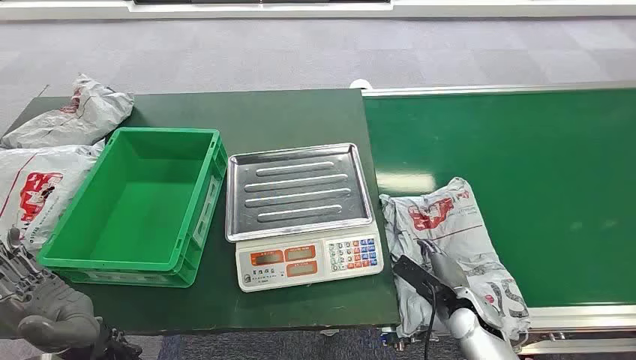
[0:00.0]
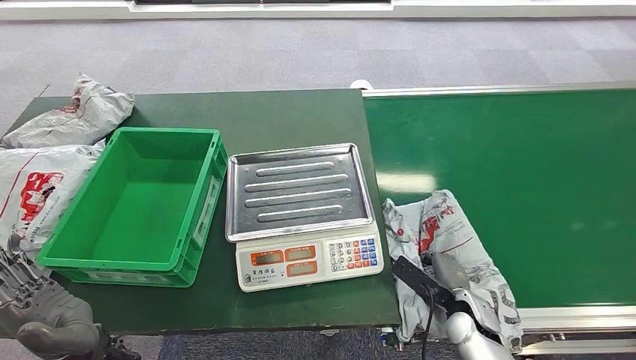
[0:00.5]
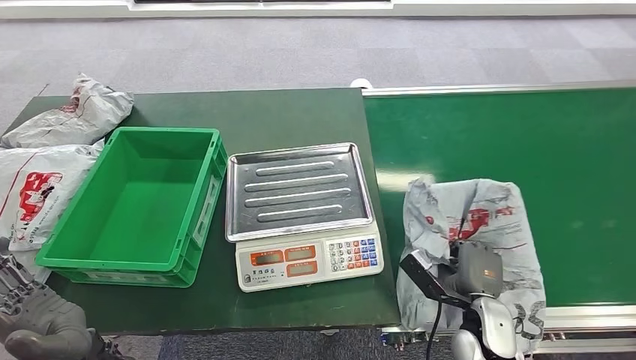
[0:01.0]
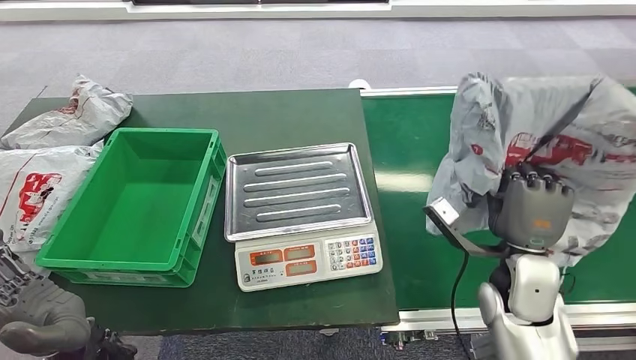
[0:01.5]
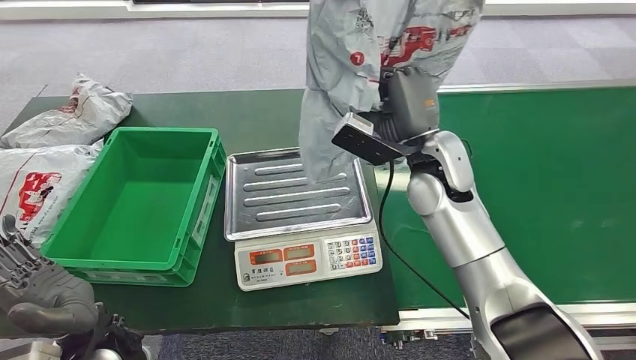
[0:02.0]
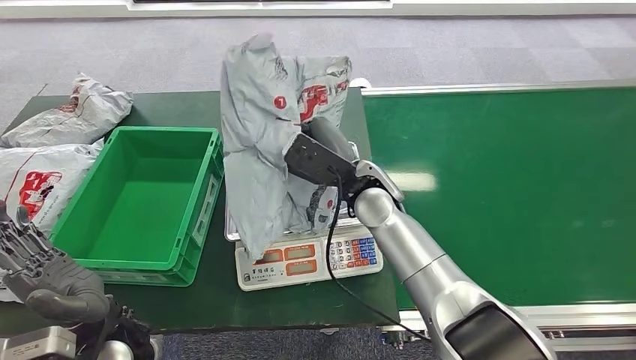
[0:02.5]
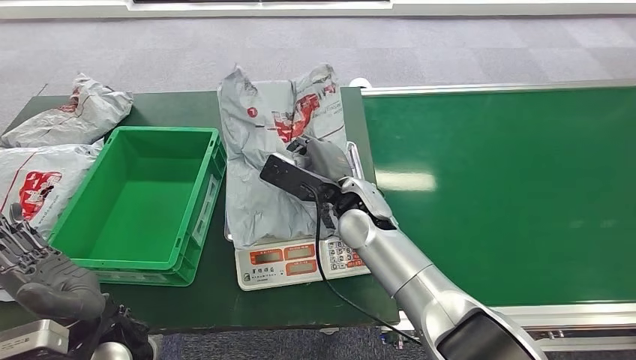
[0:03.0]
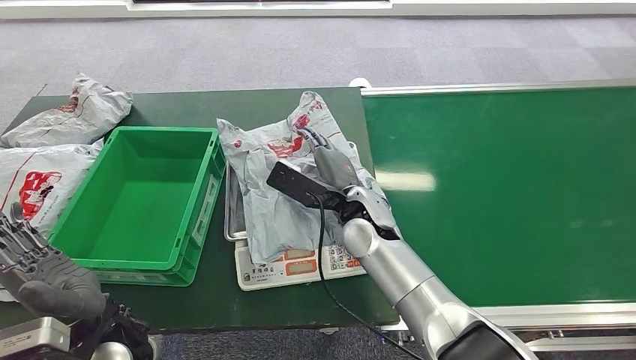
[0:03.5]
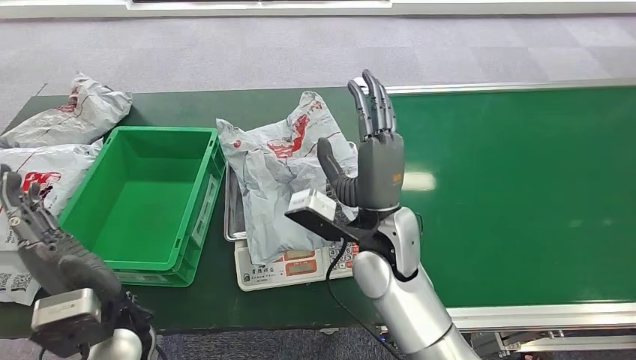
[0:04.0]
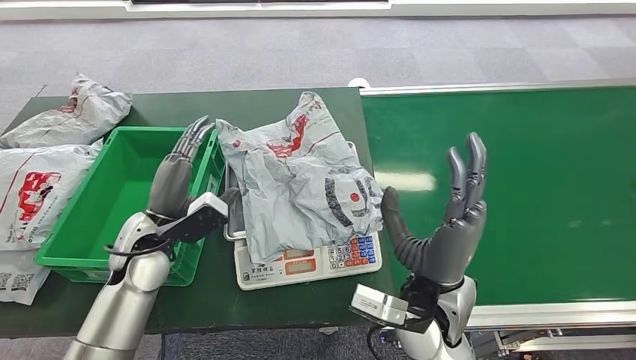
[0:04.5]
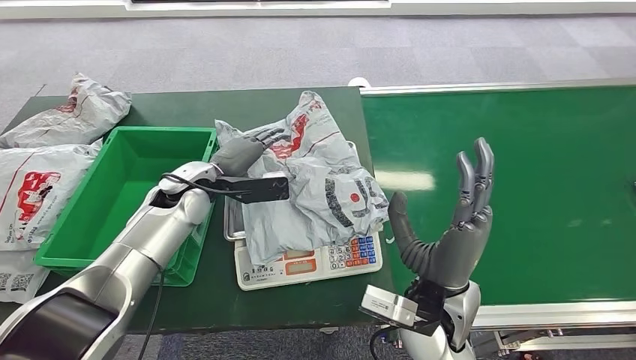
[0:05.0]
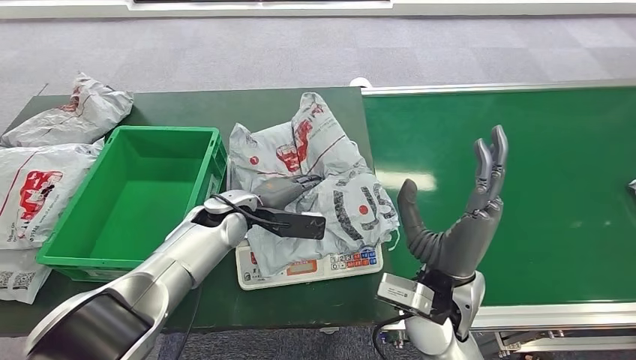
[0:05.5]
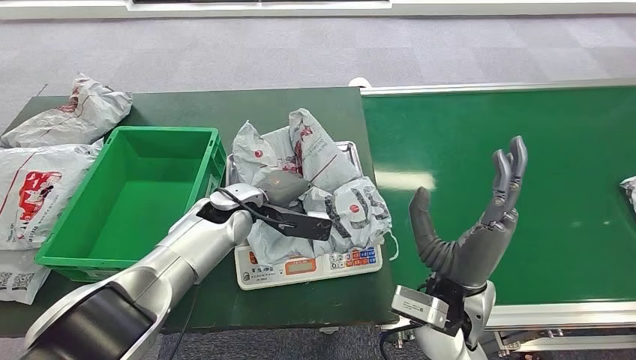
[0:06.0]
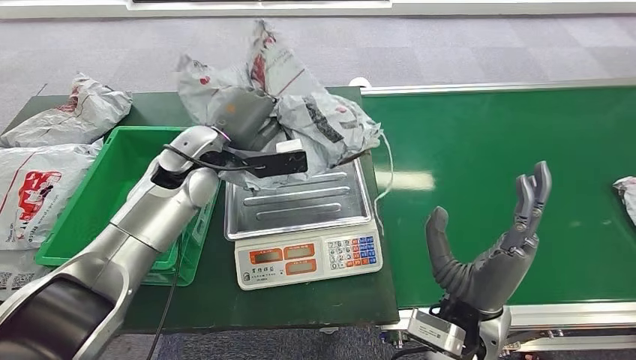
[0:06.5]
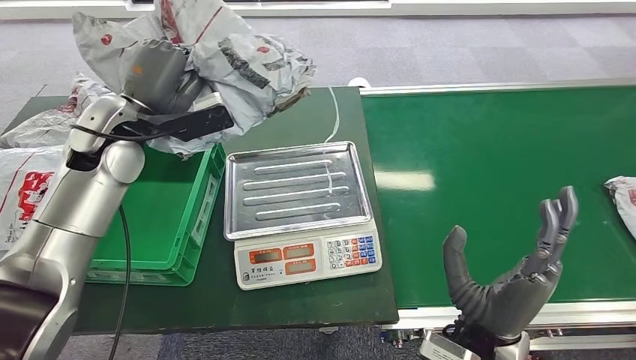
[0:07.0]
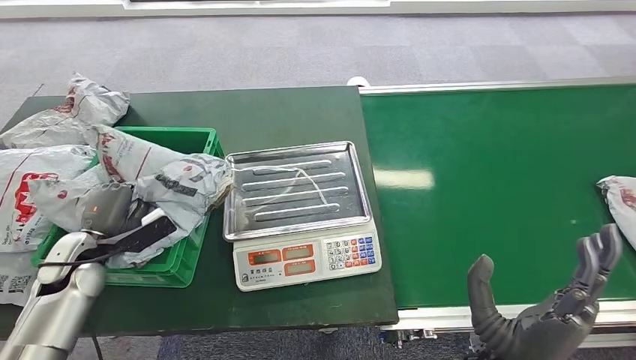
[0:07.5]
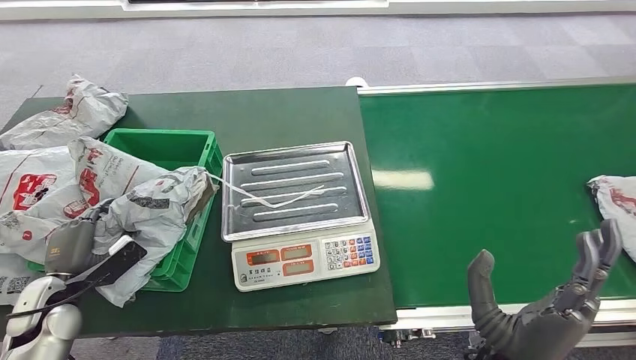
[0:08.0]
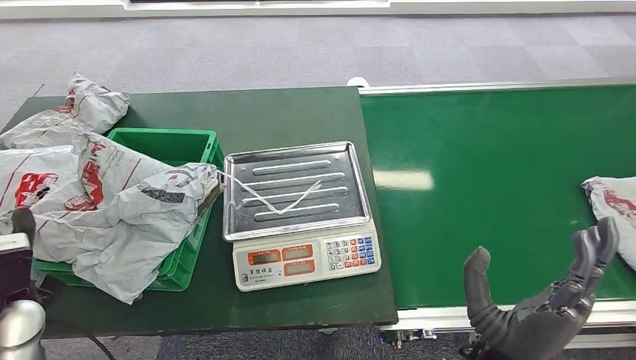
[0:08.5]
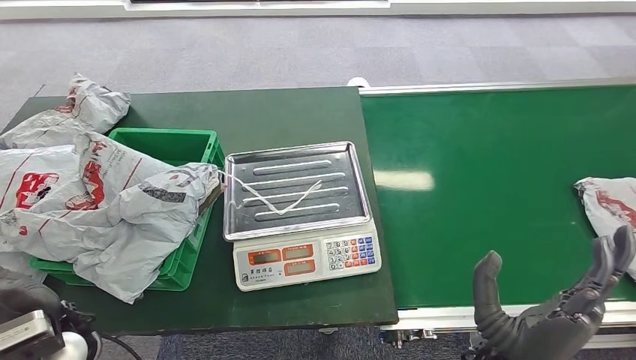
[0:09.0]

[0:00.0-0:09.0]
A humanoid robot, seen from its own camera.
Task of the whole recording: Weigh the package on the weighing device and place it in the left basket.
Step, 0:00.0 to 0:01.0: Pick up the package from the conveyor belt.
Step, 0:01.5 to 0:04.5: Place the package onto the inbound machine.
Step, 0:05.0 to 0:06.5: Pick up the package from the inbound machine.
Step, 0:07.5 to 0:09.0: Place the package into the parcel locker.

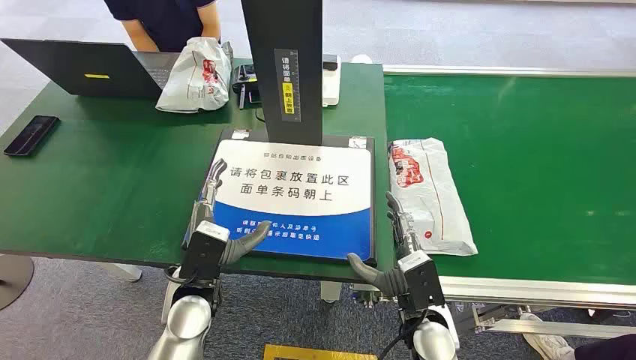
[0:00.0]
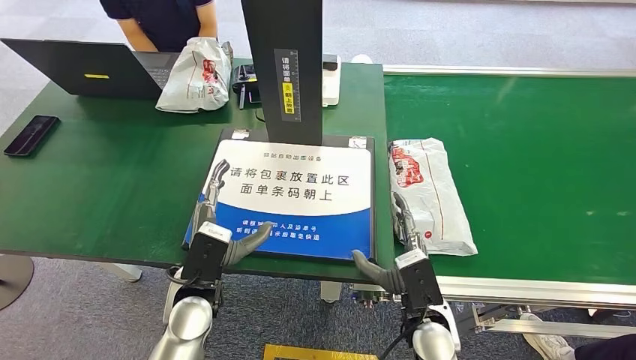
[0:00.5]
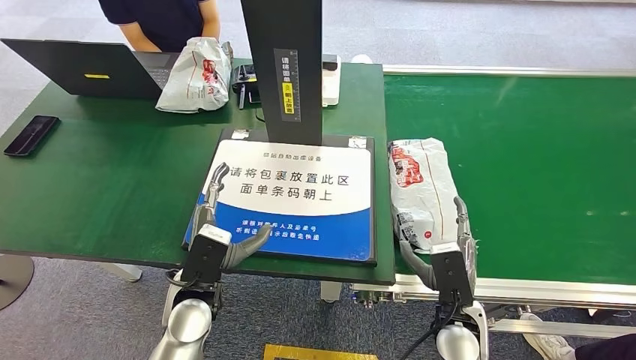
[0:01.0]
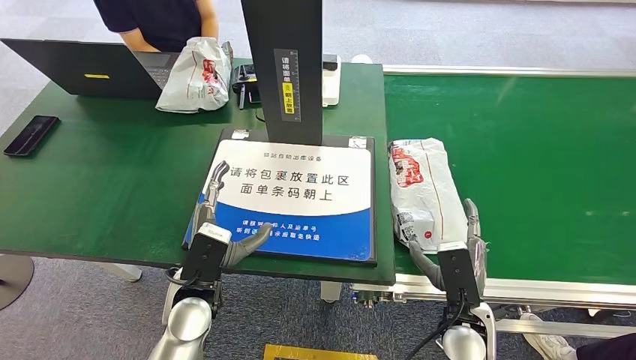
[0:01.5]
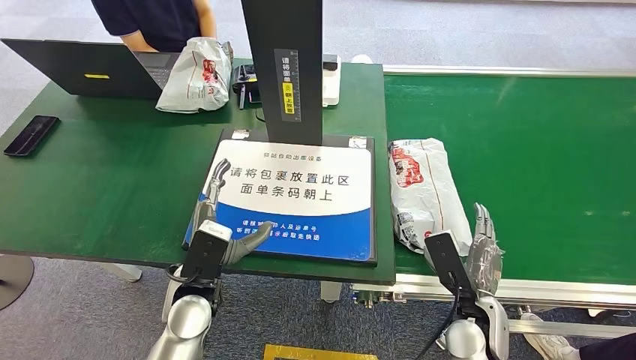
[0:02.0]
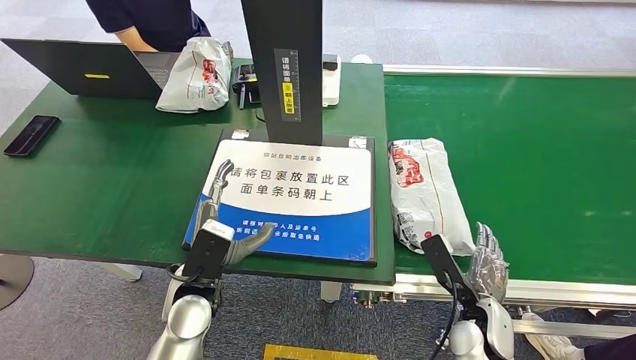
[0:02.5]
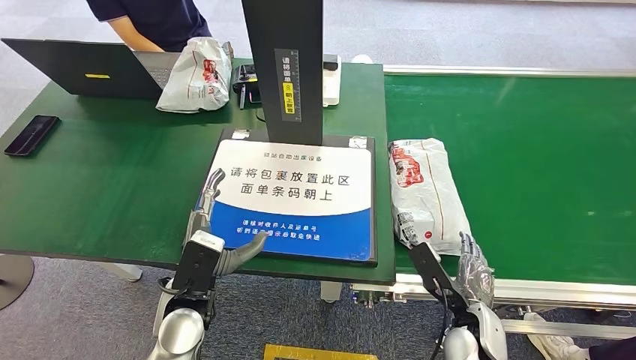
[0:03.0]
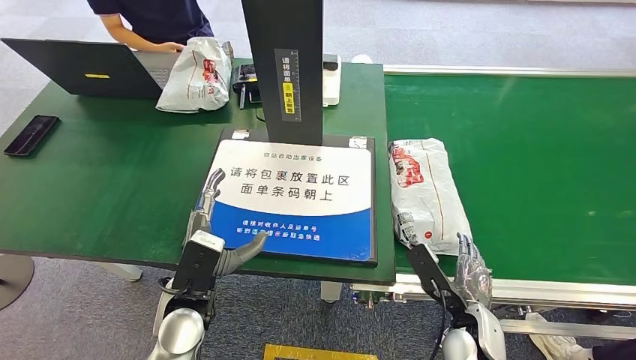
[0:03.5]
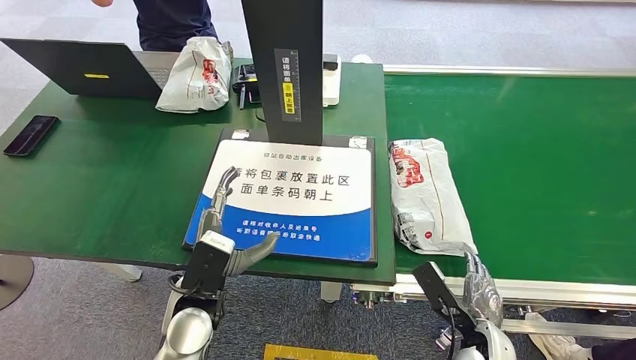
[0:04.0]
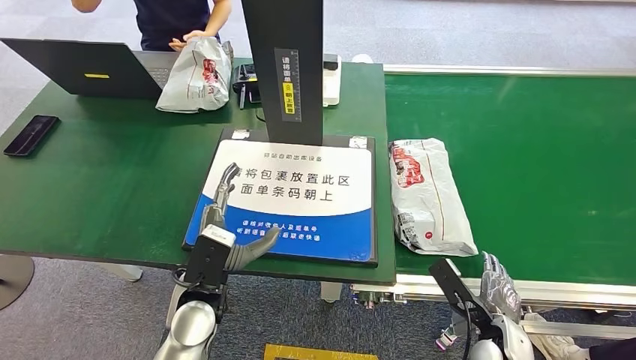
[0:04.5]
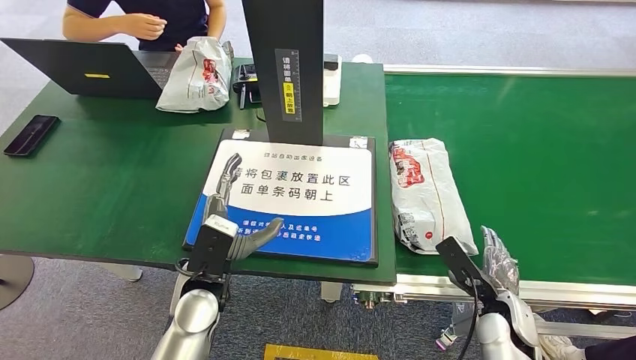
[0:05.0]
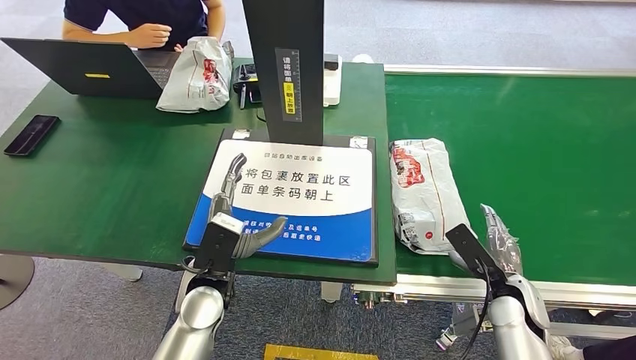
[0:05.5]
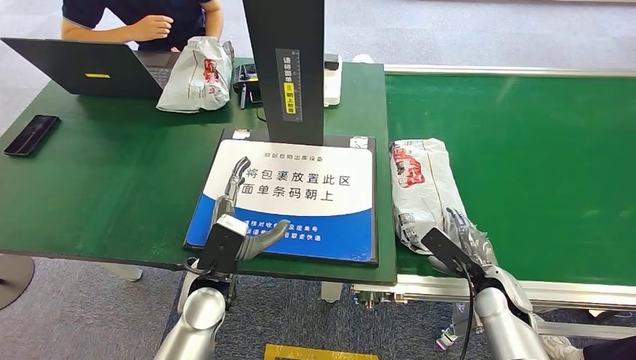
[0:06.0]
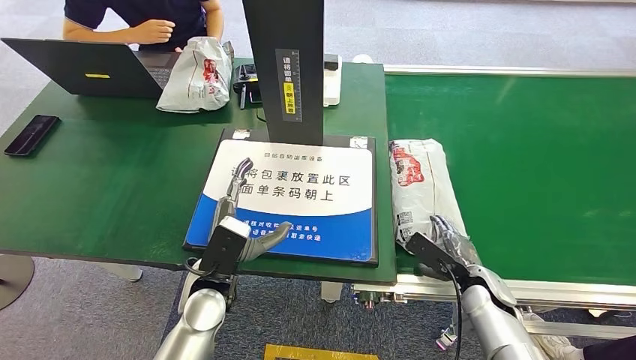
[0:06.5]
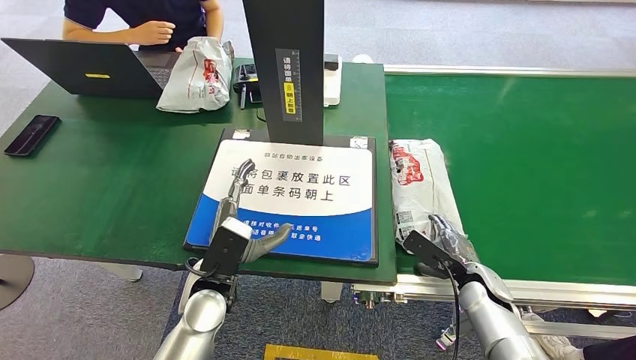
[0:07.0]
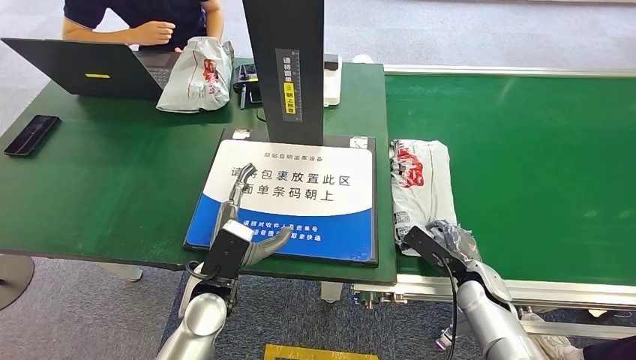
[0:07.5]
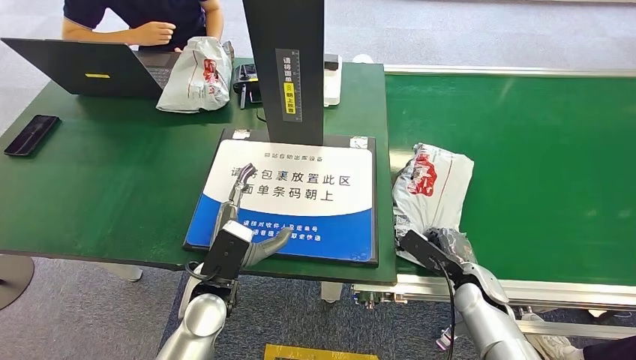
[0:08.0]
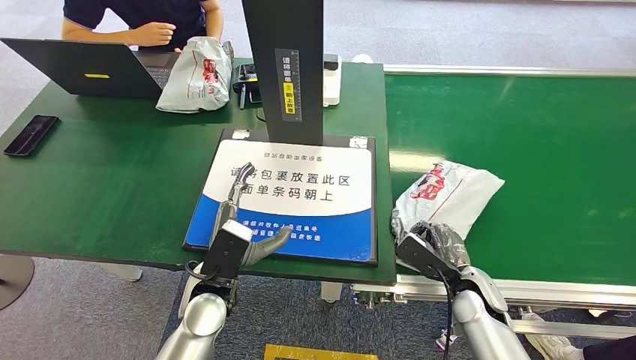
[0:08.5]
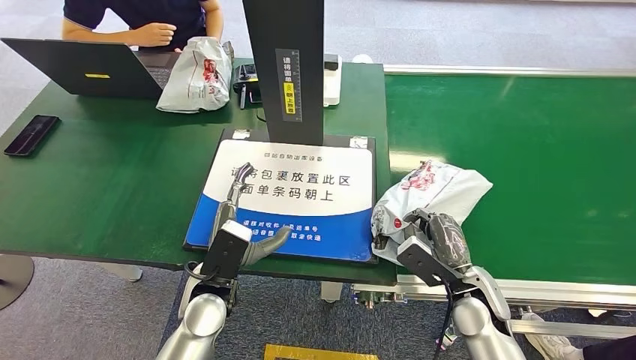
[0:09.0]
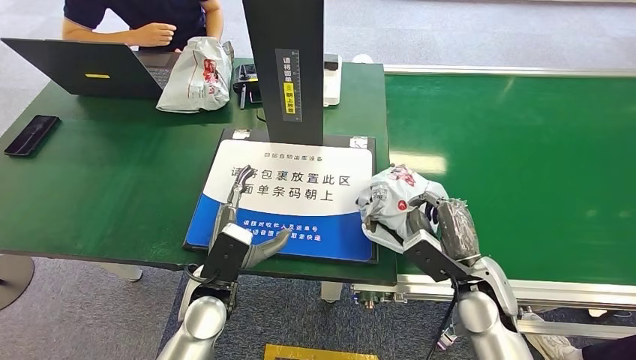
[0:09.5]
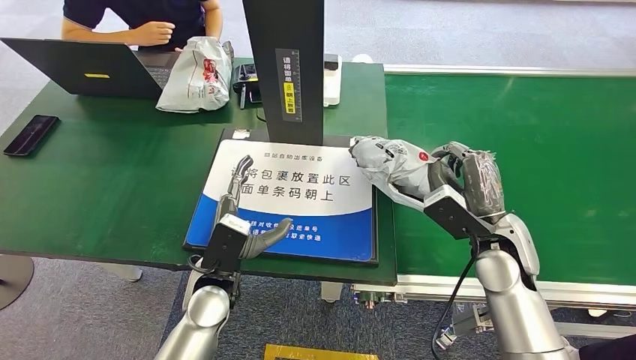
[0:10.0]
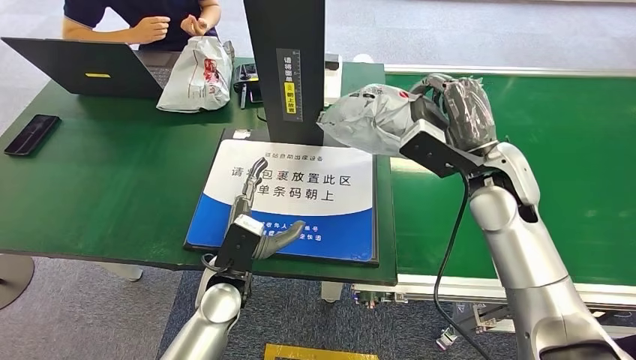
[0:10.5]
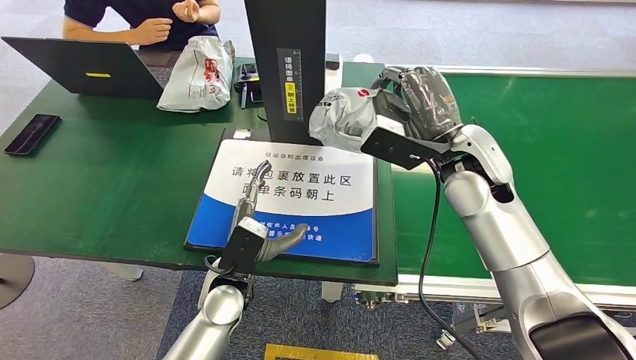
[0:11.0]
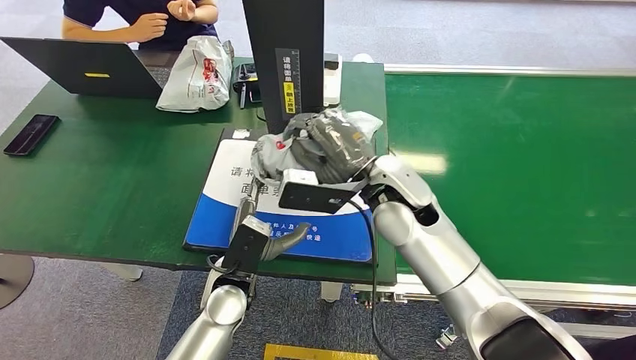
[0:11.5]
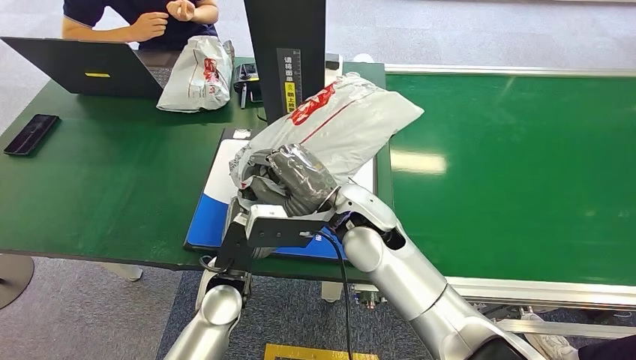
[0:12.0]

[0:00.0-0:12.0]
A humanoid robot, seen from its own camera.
Task of the whole recording: Weigh the package on the weighing device and place it in the left basket.
Step, 0:00.0 to 0:08.5: Pick up the package from the conveyor belt.
0:02.0 to 0:04.0: The right hand moves about 5 cm.
0:04.0 to 0:06.0: The right hand travels forward and to the right by some 10 cm.
0:06.0 to 0:08.0: The hands move only a little.
0:08.0 to 0:10.0: The right hand is displaced upward by about 15 cm.
